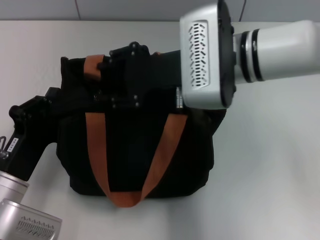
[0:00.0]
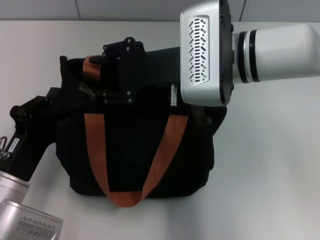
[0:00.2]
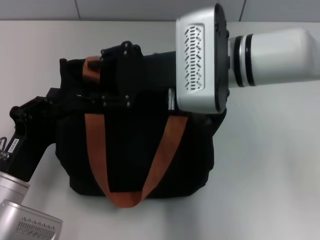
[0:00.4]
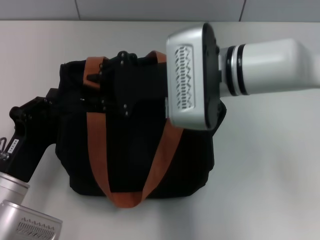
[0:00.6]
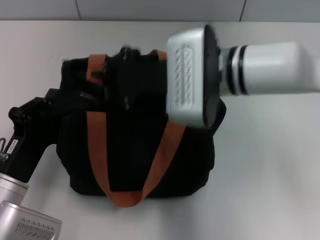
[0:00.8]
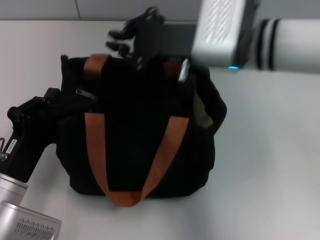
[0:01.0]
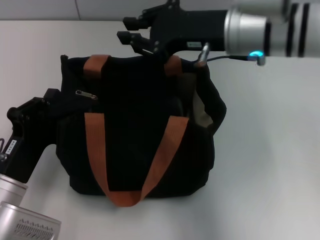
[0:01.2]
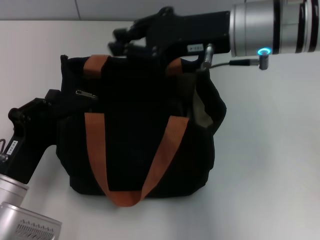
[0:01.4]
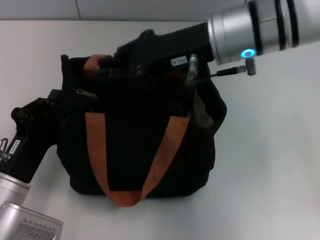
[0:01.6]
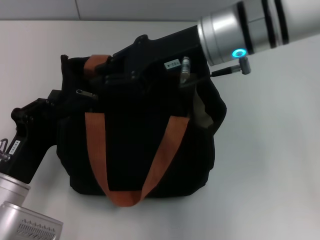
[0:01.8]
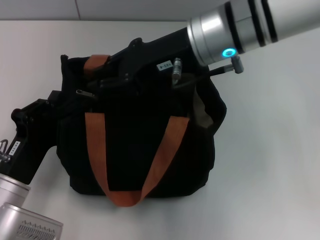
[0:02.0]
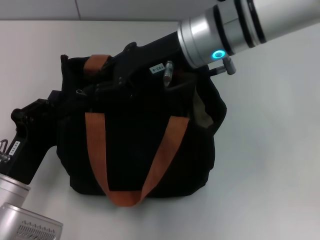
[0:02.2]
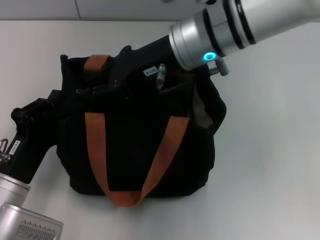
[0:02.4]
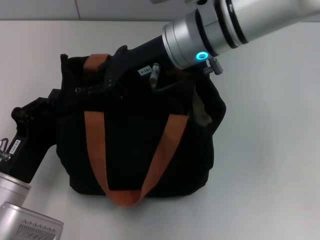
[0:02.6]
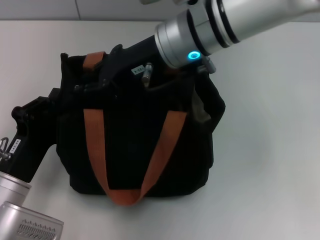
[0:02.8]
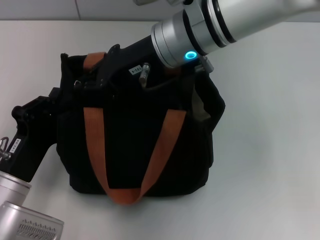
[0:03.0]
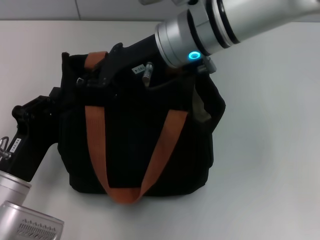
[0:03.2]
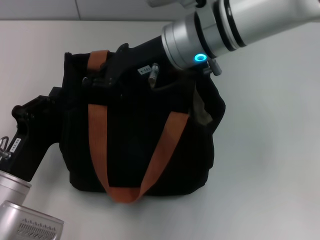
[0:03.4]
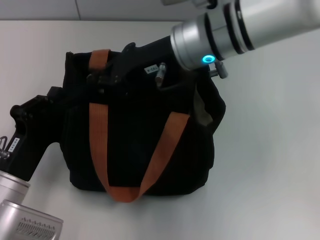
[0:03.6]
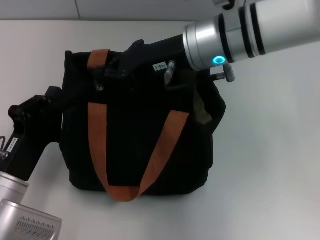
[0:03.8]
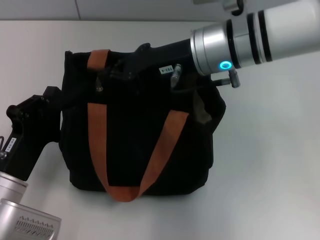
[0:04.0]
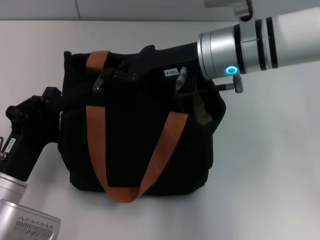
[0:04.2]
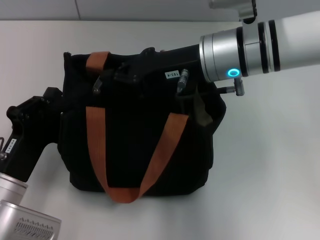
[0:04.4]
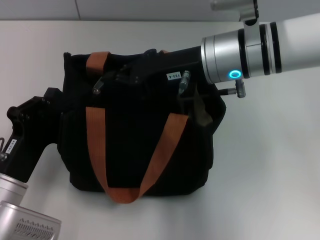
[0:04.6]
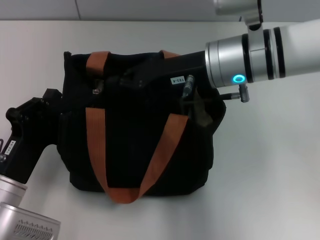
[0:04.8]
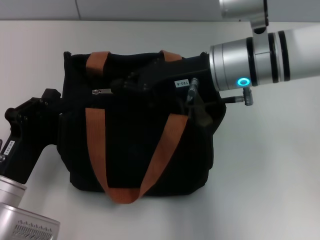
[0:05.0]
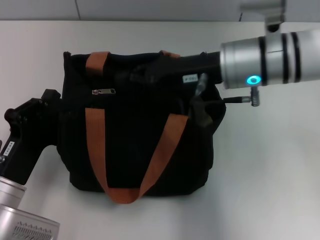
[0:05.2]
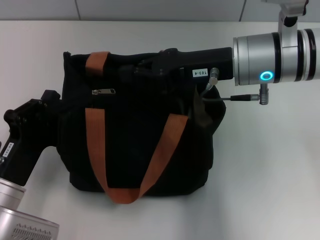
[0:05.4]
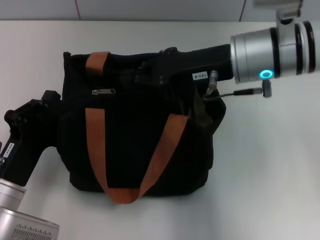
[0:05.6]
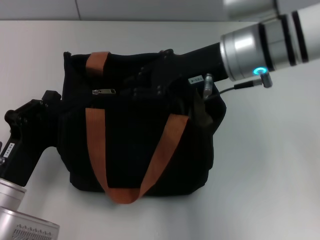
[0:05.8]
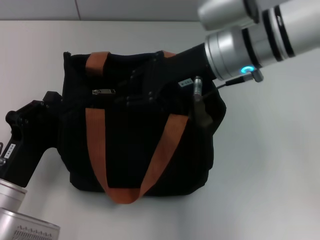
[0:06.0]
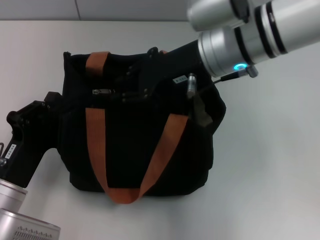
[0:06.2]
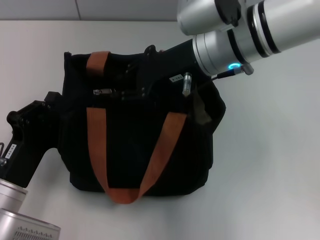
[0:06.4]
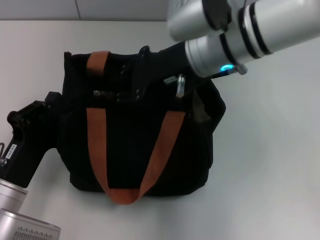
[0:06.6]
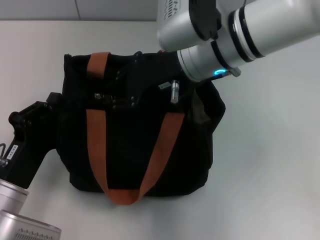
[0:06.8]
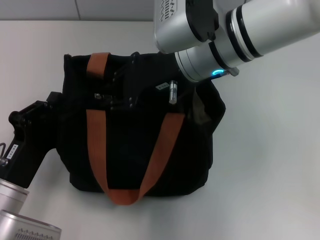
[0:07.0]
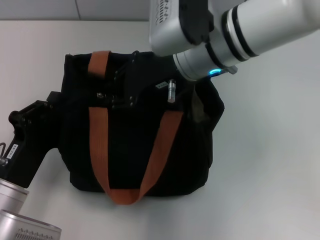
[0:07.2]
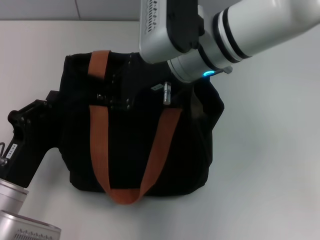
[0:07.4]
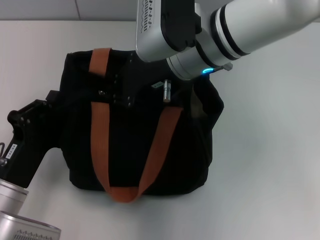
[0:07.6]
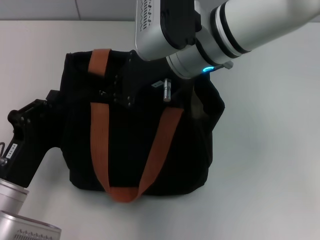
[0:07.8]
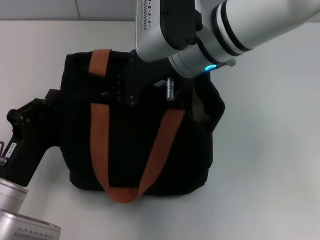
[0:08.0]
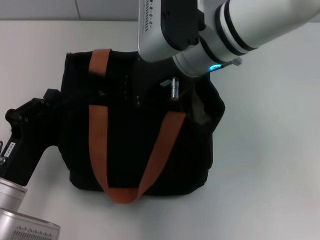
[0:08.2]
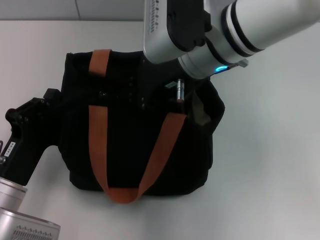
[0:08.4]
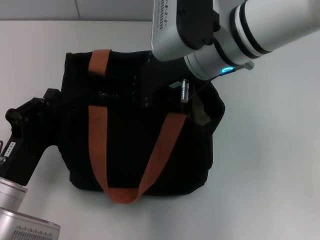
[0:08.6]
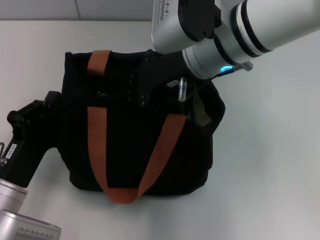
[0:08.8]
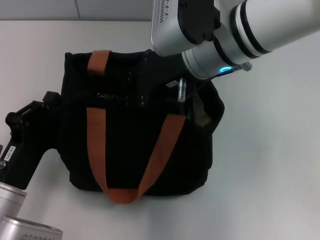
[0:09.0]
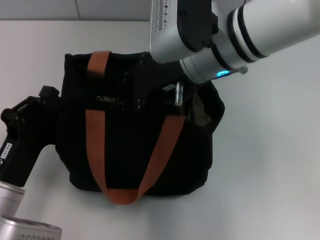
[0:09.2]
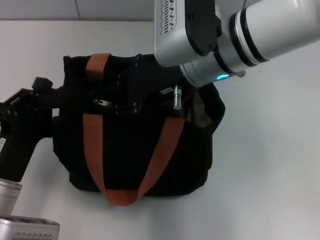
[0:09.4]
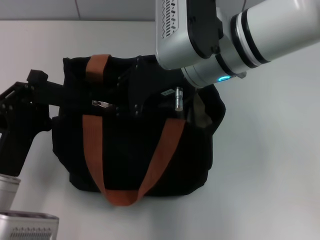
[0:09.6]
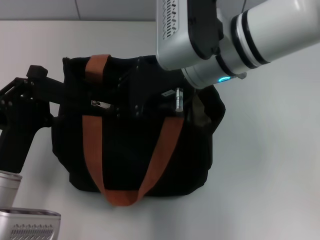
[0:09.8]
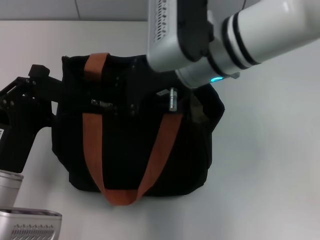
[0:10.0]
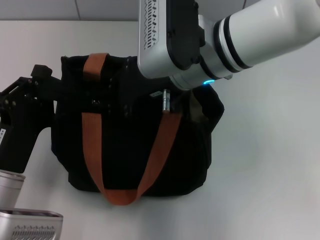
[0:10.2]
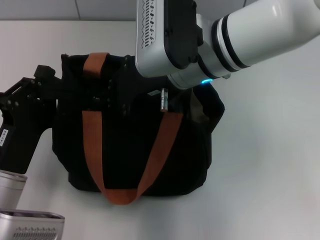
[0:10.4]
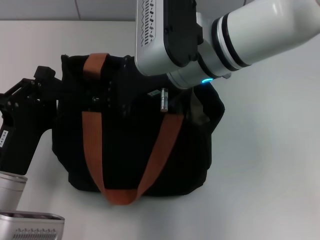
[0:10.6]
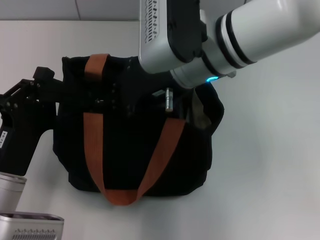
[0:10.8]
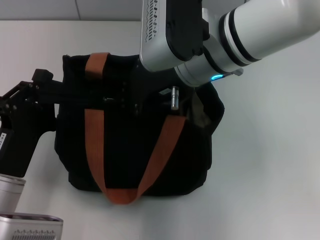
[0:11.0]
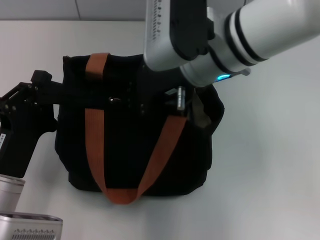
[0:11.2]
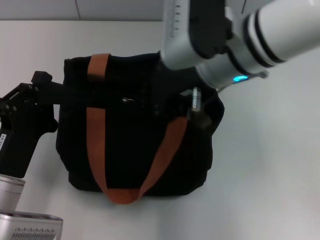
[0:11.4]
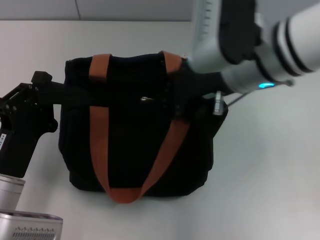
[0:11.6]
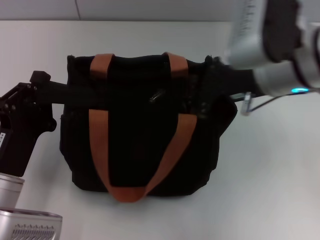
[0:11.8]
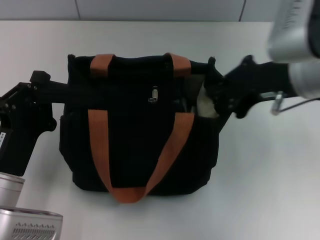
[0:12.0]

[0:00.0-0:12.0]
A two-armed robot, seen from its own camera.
Step, 0:00.0 to 0:11.8: Pull up the zipper with your right hand.
0:00.0 to 0:01.6: The right gripper closes.
0:01.6 to 0:03.0: The right gripper moves to the left, about 5 cm.
0:03.0 to 0:04.4: The right gripper goes approximately 5 cm to the right.
0:07.6 to 0:10.4: The grippers stay close to where they were, moving slightly.
0:10.4 to 0:12.0: The right gripper shifts about 15 cm to the right.

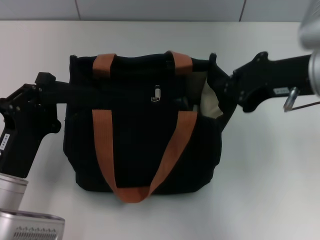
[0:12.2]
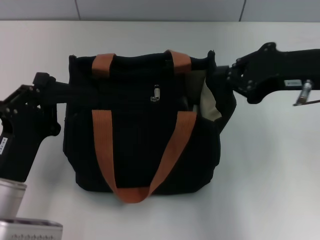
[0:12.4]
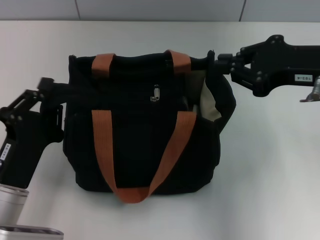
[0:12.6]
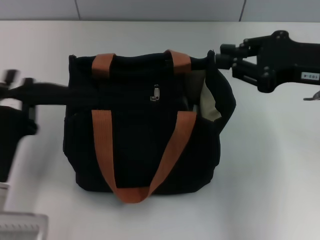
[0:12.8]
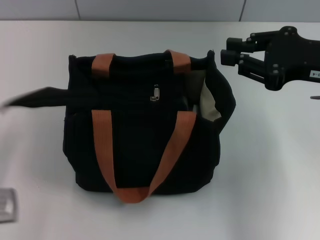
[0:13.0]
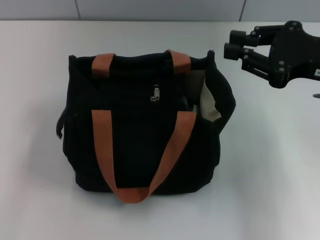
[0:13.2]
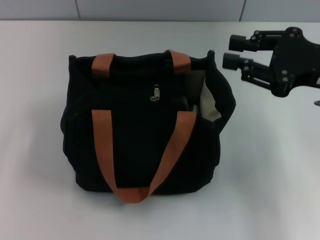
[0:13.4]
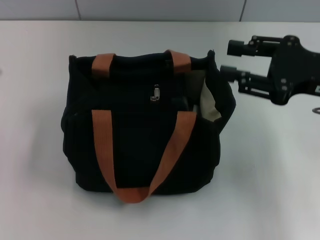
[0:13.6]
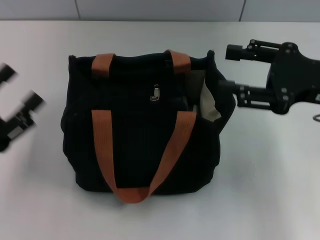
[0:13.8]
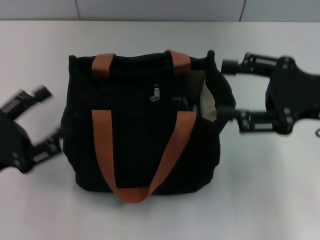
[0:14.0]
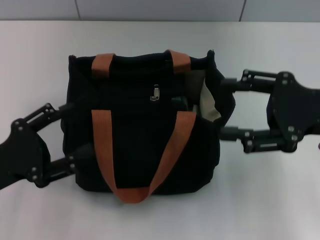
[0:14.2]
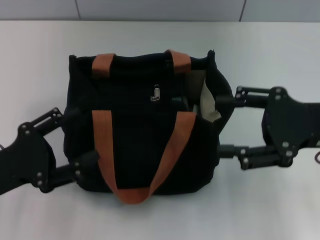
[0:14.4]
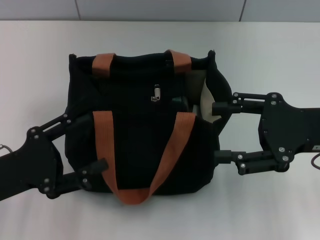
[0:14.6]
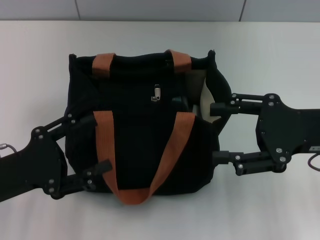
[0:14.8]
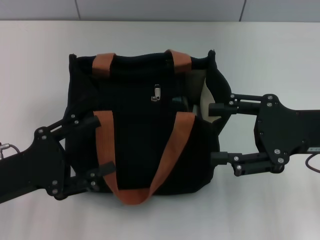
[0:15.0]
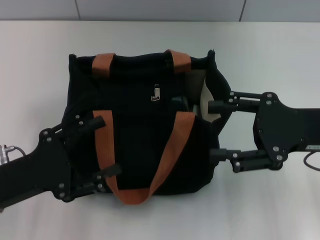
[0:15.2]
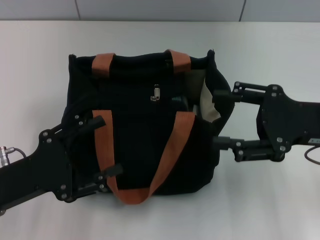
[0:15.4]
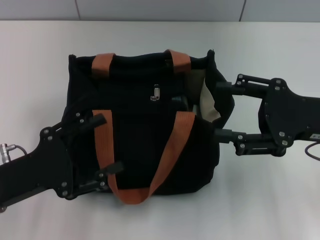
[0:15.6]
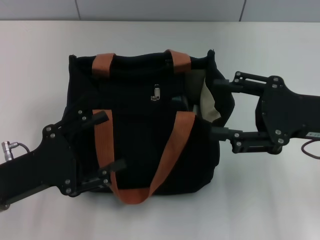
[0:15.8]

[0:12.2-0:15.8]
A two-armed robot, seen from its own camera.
Step, 0:12.2 to 0:13.6: Grab the zipper with your left hand.
0:12.2 to 0:14.0: The right gripper heads to the right, covering about 5 cm, and opens. The left gripper goes roughly 10 cm to the left, and opens up.
0:14.0 to 0:15.8: The grippers make only small movements.

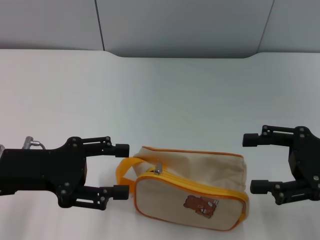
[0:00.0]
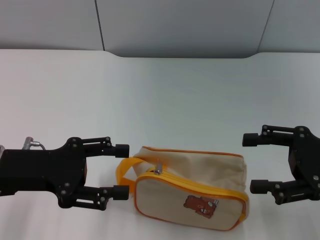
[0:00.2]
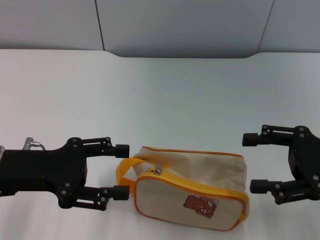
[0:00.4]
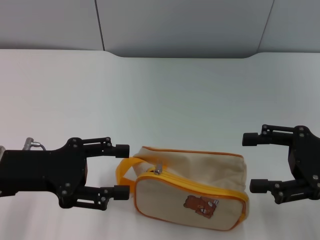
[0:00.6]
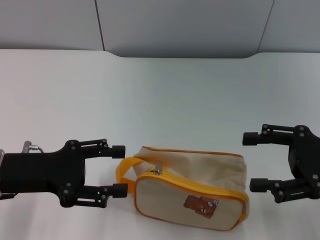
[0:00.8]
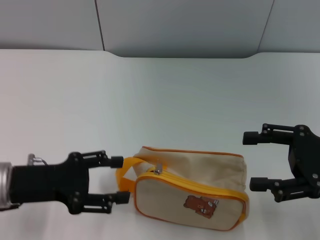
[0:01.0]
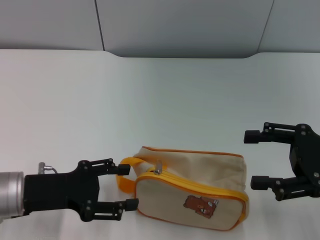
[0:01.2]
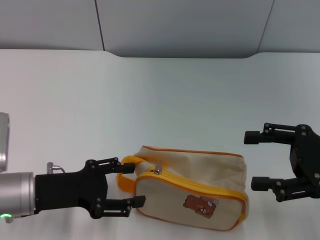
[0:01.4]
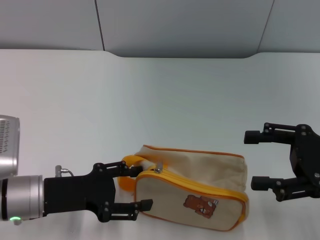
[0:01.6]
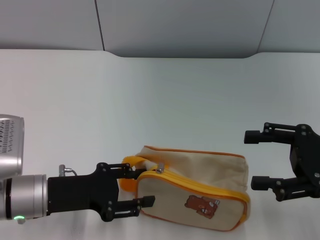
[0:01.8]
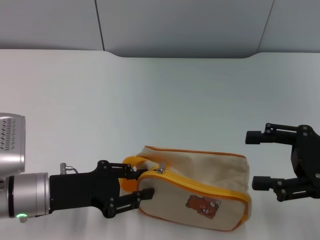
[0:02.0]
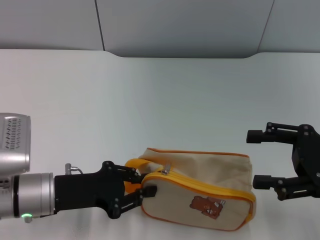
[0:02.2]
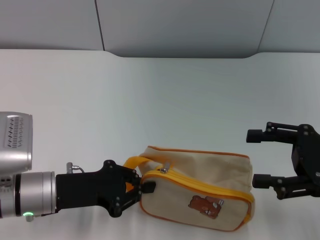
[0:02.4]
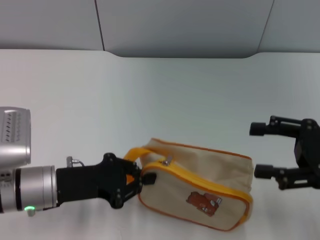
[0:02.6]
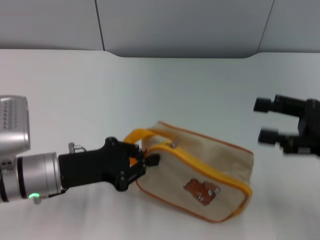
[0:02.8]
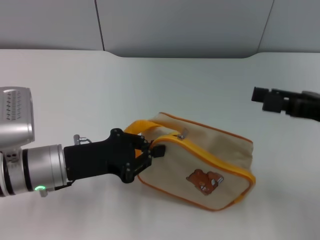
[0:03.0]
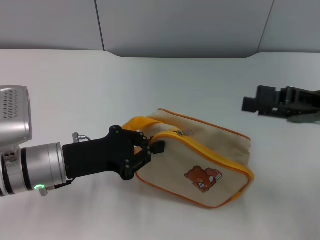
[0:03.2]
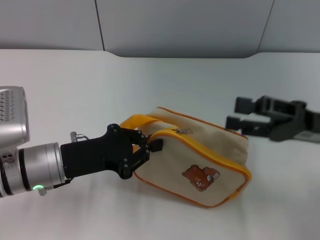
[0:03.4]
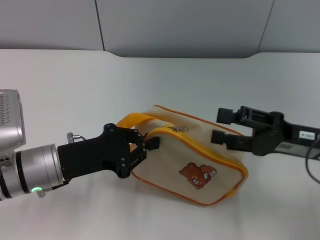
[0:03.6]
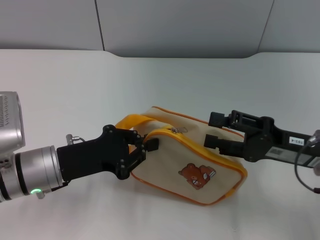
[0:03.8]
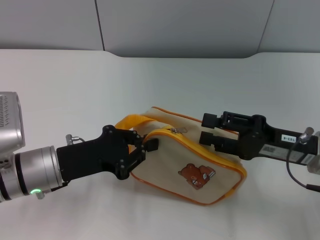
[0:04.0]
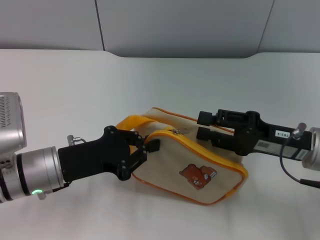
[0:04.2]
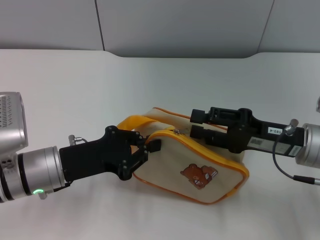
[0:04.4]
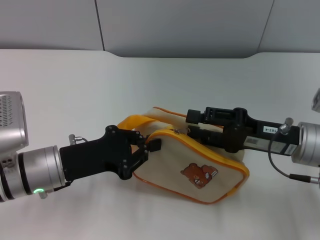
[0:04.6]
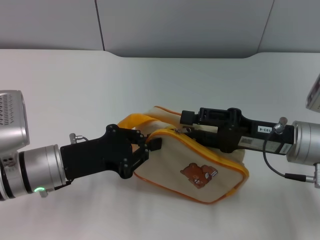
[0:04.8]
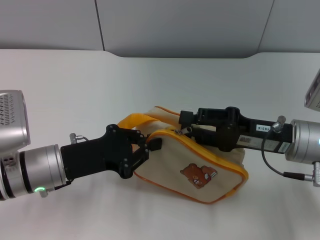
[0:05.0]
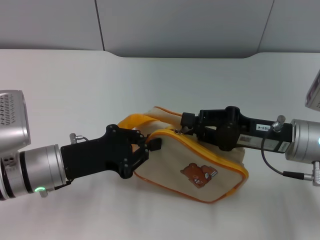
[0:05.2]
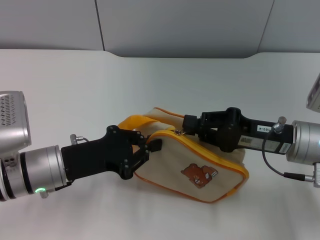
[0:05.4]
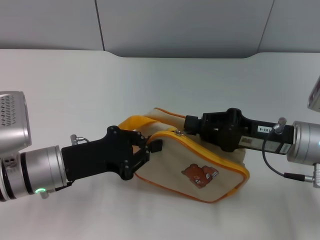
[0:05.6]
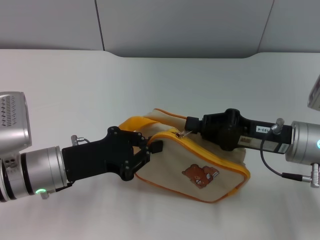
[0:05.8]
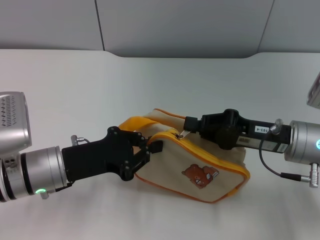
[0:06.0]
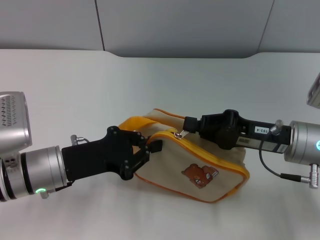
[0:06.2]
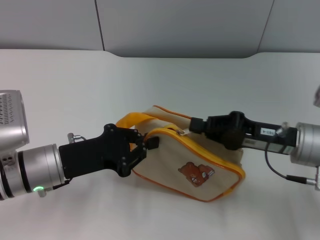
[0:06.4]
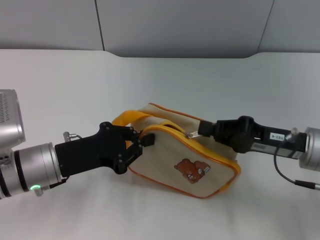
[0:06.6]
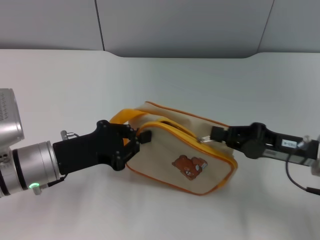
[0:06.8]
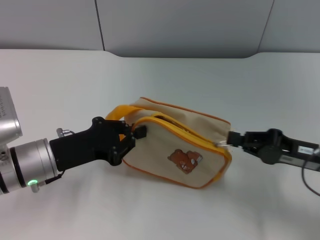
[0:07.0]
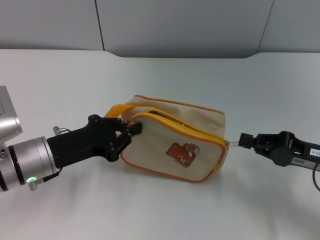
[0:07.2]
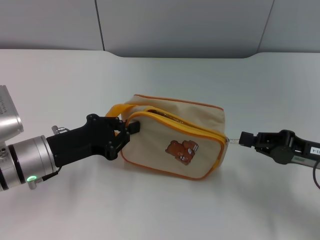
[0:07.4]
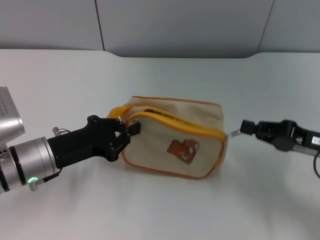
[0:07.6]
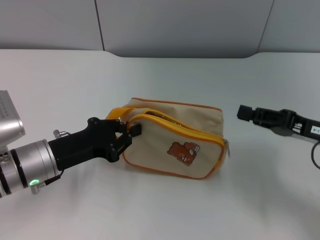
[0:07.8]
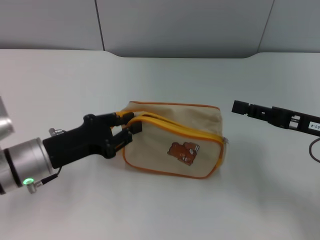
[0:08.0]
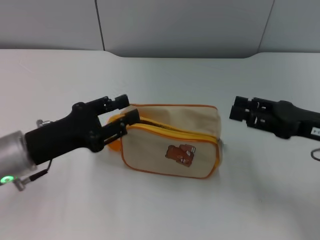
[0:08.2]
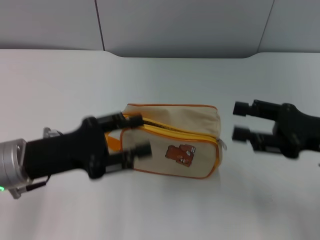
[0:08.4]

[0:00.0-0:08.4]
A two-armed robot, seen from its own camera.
Step, 0:00.0 to 0:03.0: Pick up the bag with left gripper.
Step, 0:03.2 to 0:07.6: Unzip the zipper of bag with right gripper.
Step, 0:07.8 to 0:08.0: Place the bag on the table with left gripper.
0:00.0 to 0:01.4: The left gripper heads downward, covering approximately 5 cm.
0:01.4 to 0:02.8: The left gripper closes its fingers.
0:02.8 to 0:04.2: The right gripper moves to the left and downward, some 10 cm.
0:04.2 to 0:05.6: The right gripper closes up.
0:05.6 to 0:07.0: The right gripper goes approximately 5 cm to the right.
0:07.0 to 0:08.4: The right gripper opens its fingers; the left gripper opens.
